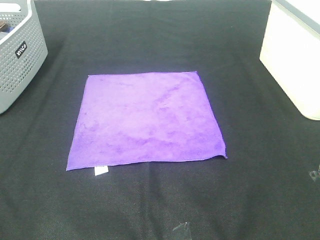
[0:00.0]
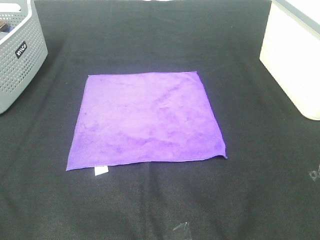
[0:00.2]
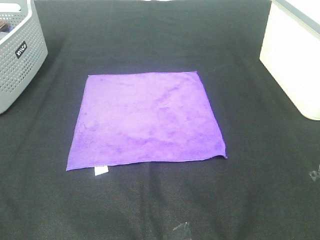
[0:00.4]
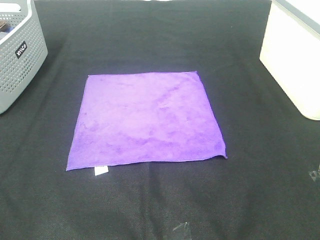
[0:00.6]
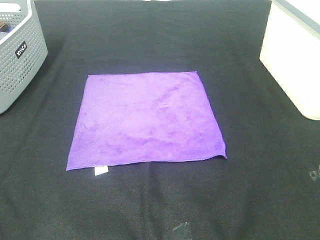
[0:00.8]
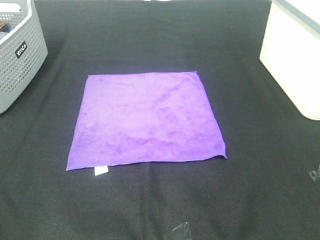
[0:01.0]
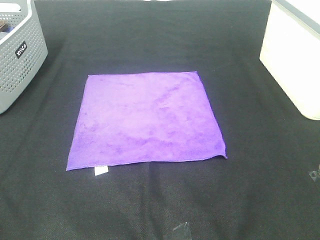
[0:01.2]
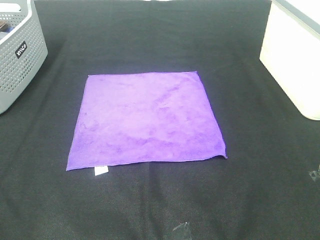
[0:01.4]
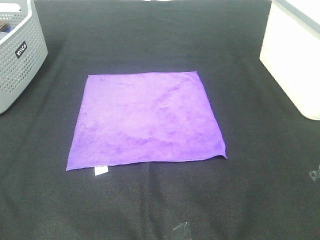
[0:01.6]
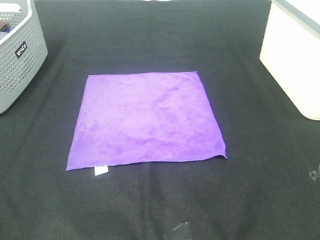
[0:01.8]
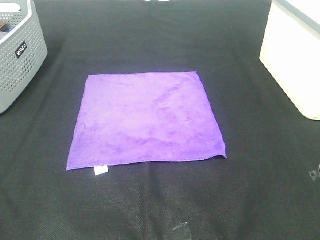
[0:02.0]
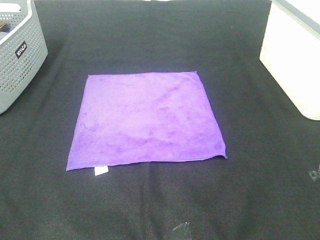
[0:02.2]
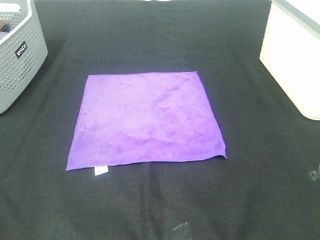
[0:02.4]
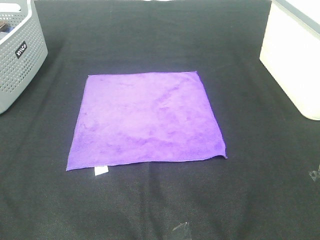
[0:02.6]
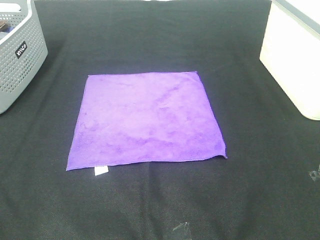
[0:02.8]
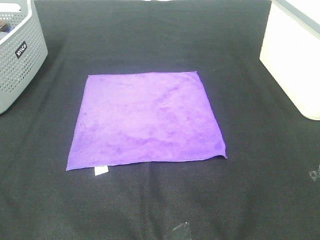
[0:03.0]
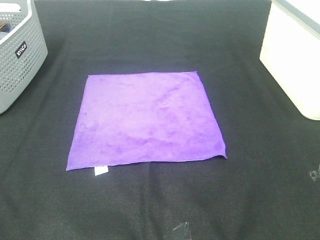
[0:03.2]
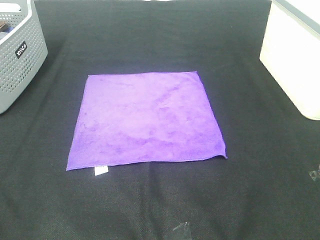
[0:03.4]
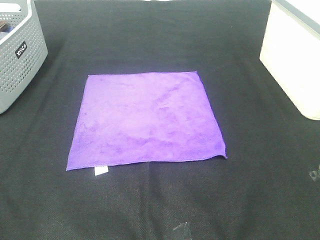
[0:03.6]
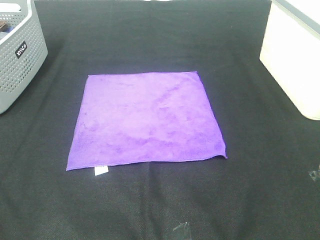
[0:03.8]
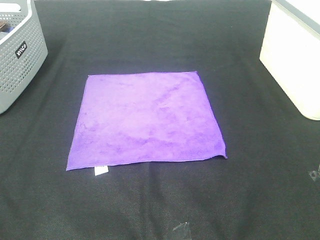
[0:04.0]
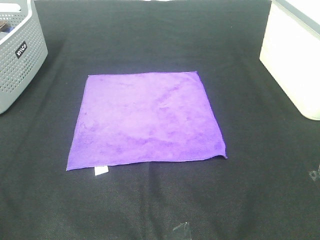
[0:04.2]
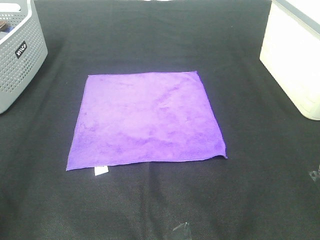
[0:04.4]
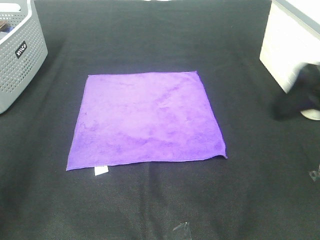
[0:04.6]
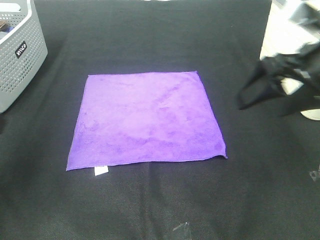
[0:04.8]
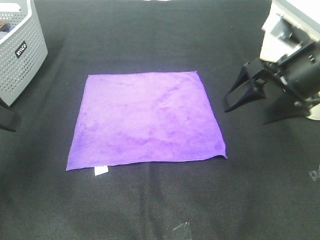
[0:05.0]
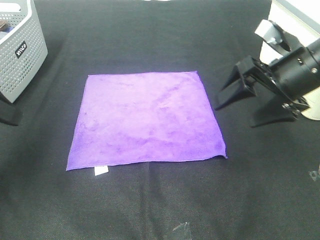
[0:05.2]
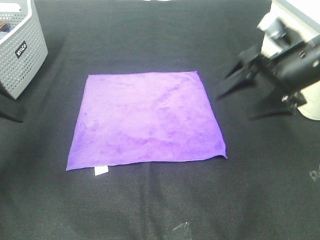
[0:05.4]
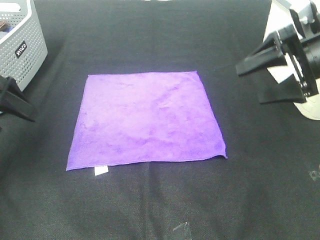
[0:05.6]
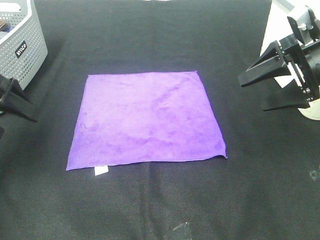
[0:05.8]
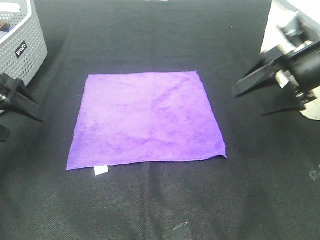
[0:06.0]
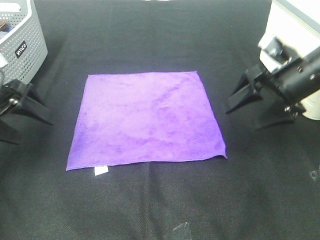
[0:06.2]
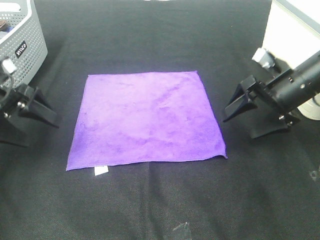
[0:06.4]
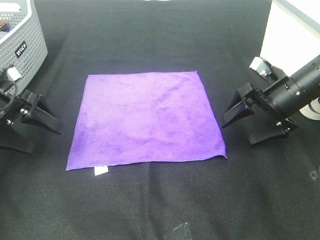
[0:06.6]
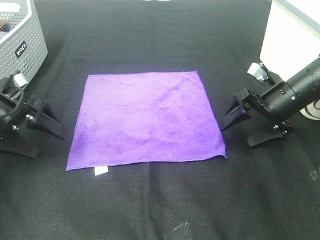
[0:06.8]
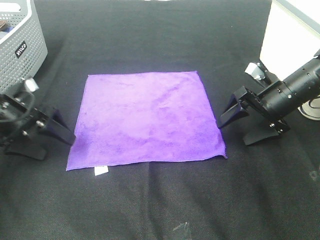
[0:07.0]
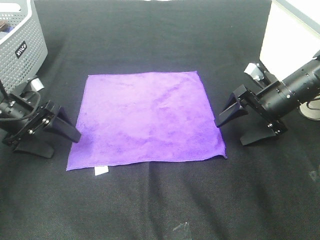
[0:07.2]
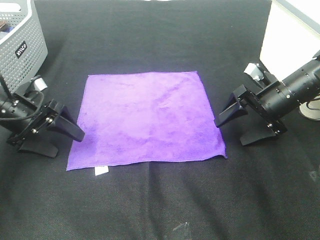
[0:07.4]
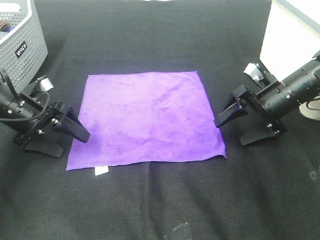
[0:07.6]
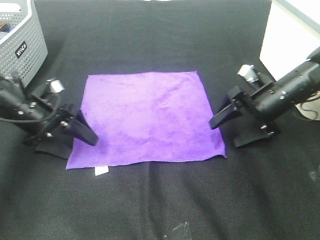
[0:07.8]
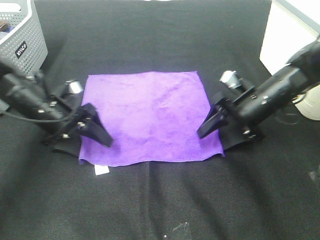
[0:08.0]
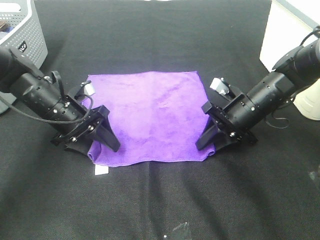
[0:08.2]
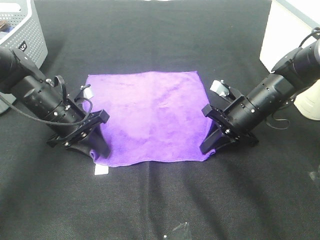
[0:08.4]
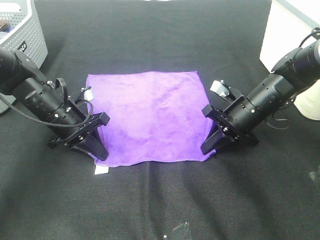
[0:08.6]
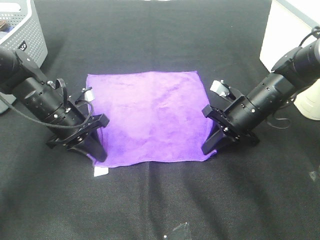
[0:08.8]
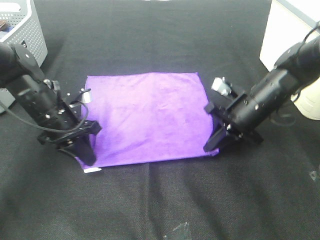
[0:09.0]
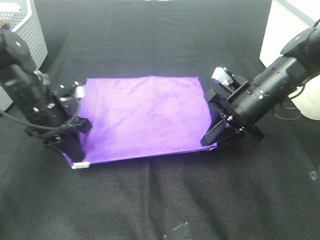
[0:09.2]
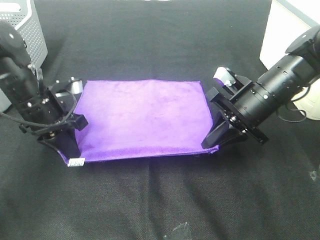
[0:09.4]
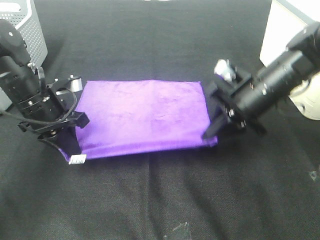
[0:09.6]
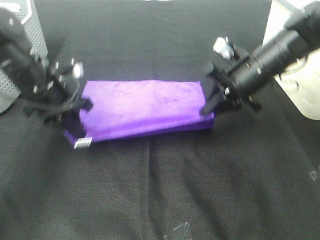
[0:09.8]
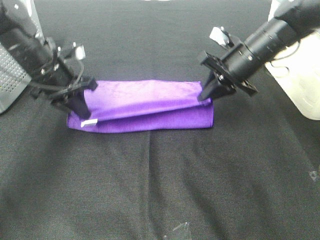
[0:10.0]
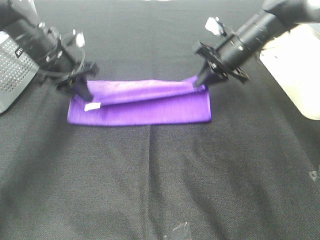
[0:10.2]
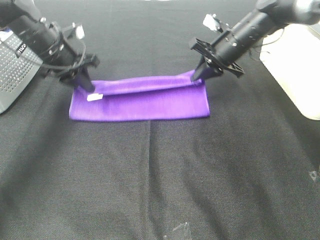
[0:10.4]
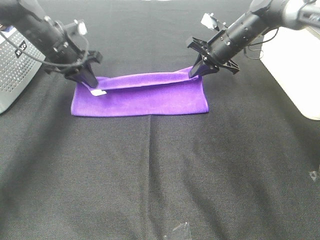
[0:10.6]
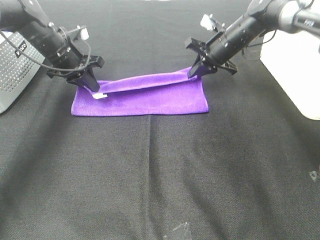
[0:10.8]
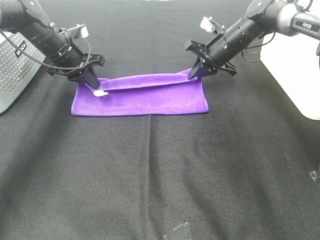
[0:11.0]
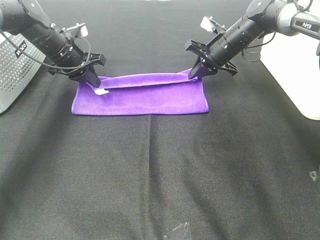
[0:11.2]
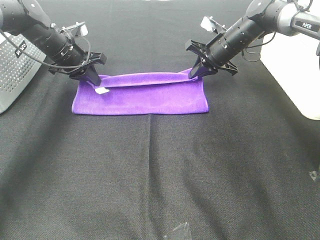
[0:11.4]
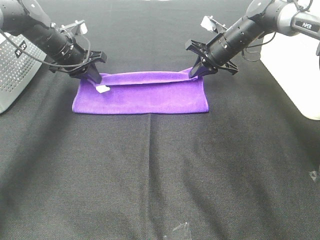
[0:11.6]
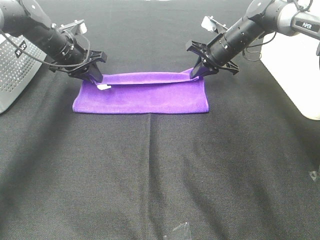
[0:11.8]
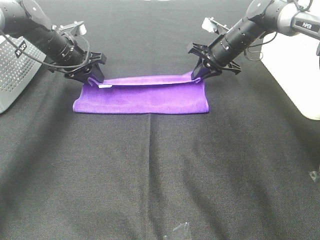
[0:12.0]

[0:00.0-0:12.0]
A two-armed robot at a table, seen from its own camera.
Task of the whole recording: Fold towels.
Step, 0:00.0 to 0:08.6: Left hand: grab the bottom left corner of purple towel.
Step, 0:00.0 to 0:08.6: Right hand: grab the bottom right corner of purple towel.
Step, 0:08.8 to 0:11.8: Left hand: fold the purple towel up.
Step, 0:08.8 to 0:11.8: Right hand: fold the purple towel up.
0:00.0 to 0:03.0: Neither gripper changes place.
0:04.4 to 0:06.0: The two grippers go some 20 cm forward and downward.
0:06.0 to 0:07.6: The right gripper goes approximately 10 cm downward. The left gripper travels downward and to the right by roughly 10 cm.
0:07.6 to 0:09.0: The right gripper travels to the left by about 5 cm, and closes up; the left gripper moves to the right, roughly 5 cm, and closes.
0:09.0 to 0:10.4: The right gripper moves forward, roughly 15 cm. Meanwhile the left gripper goes approximately 15 cm forward and upward.
0:10.4 to 0:12.0: The left gripper opens its fingers.

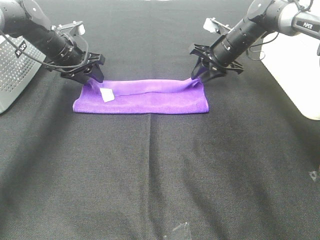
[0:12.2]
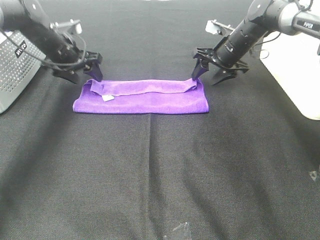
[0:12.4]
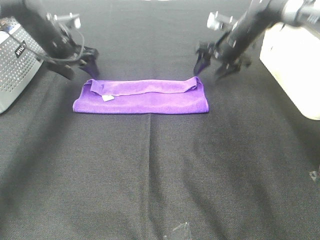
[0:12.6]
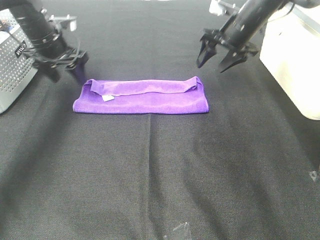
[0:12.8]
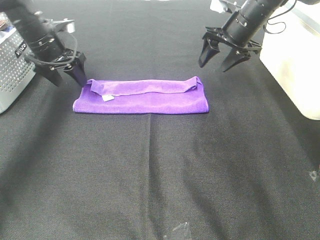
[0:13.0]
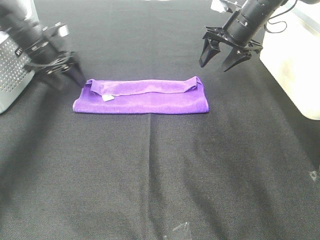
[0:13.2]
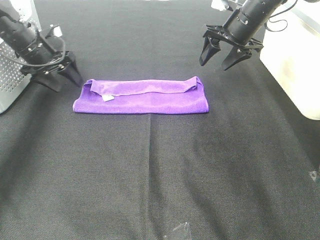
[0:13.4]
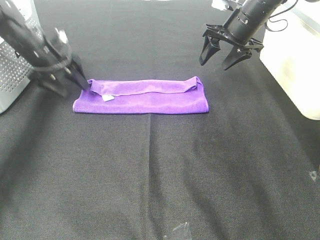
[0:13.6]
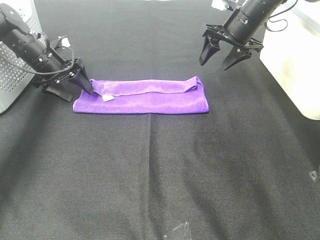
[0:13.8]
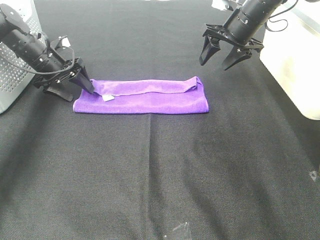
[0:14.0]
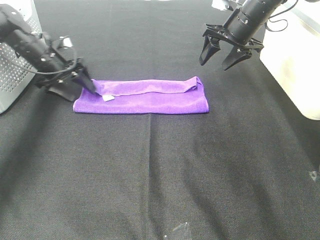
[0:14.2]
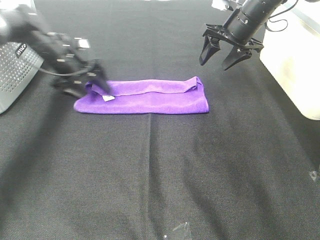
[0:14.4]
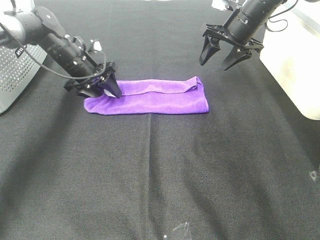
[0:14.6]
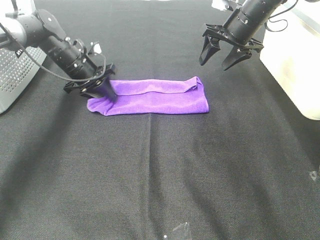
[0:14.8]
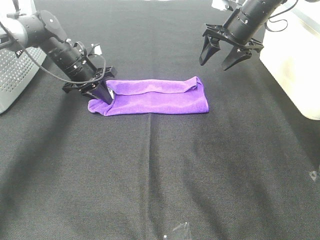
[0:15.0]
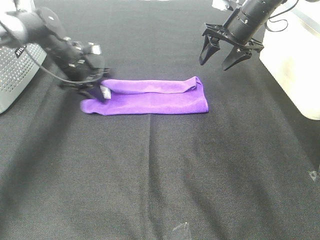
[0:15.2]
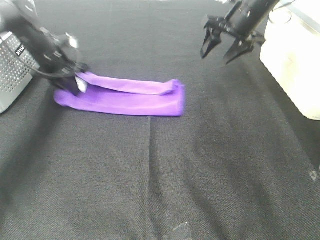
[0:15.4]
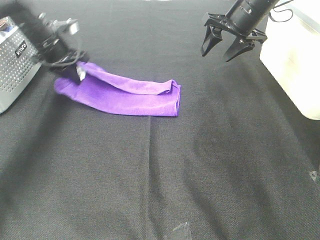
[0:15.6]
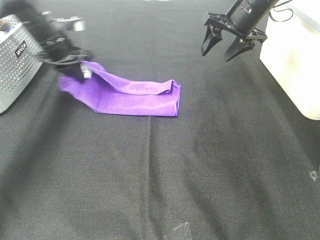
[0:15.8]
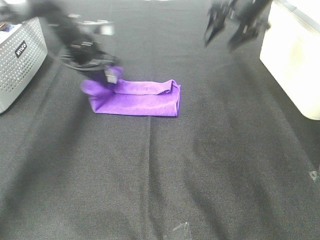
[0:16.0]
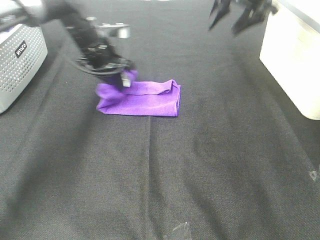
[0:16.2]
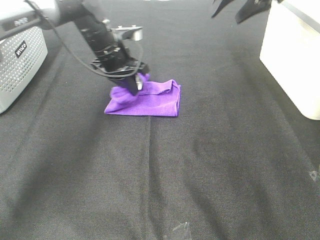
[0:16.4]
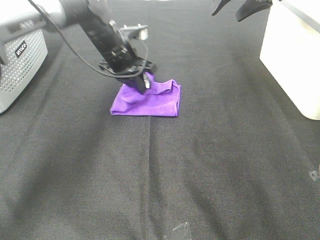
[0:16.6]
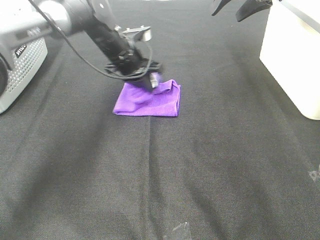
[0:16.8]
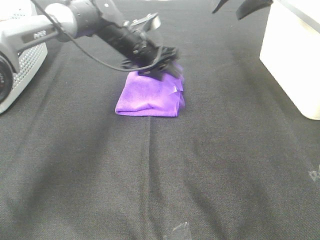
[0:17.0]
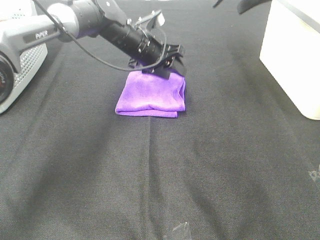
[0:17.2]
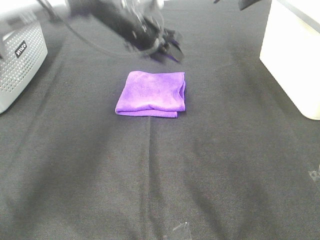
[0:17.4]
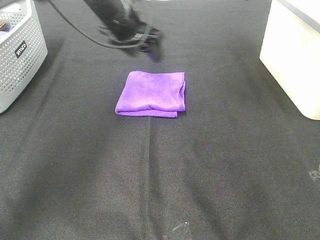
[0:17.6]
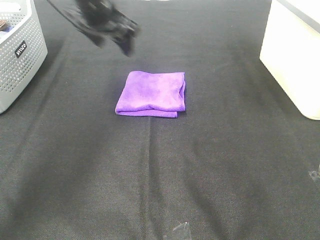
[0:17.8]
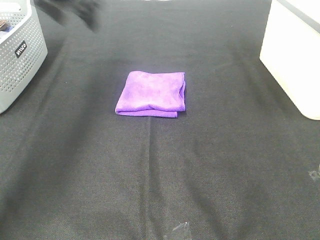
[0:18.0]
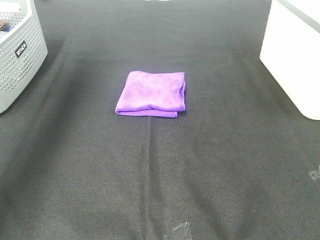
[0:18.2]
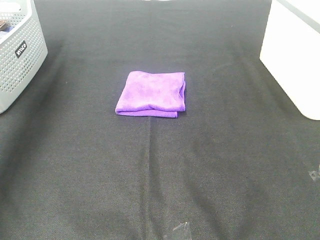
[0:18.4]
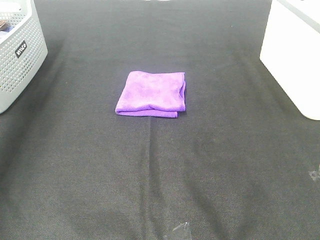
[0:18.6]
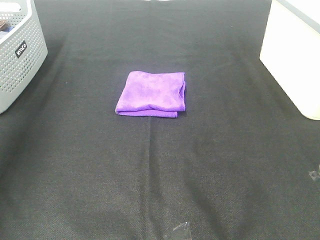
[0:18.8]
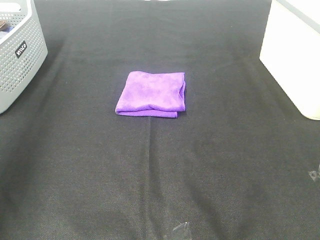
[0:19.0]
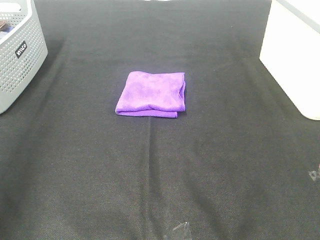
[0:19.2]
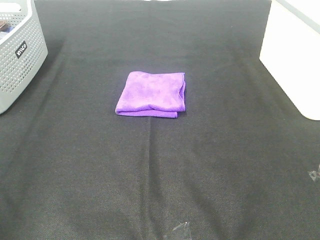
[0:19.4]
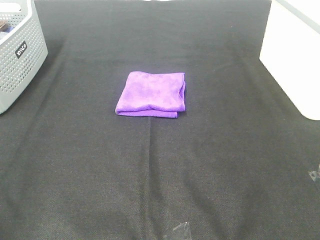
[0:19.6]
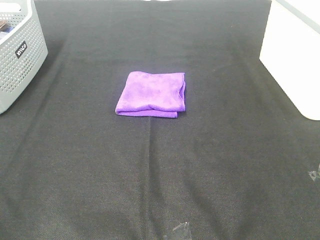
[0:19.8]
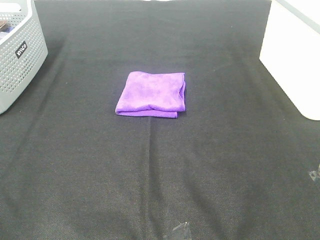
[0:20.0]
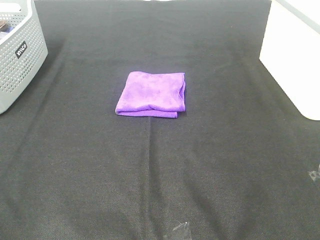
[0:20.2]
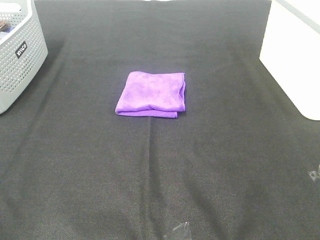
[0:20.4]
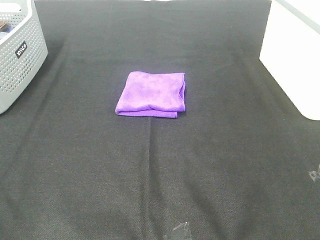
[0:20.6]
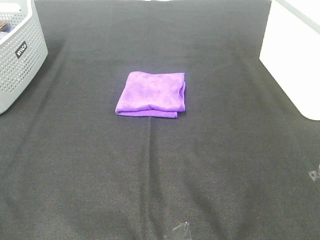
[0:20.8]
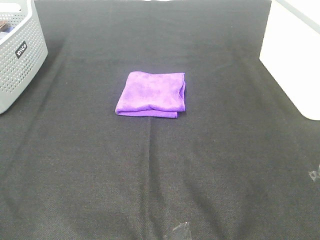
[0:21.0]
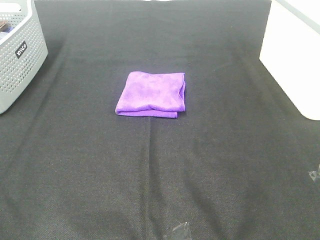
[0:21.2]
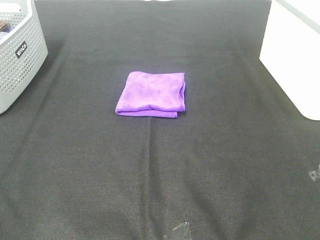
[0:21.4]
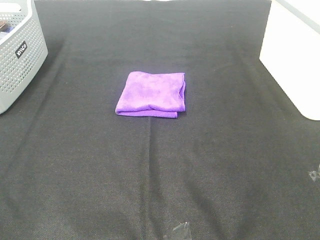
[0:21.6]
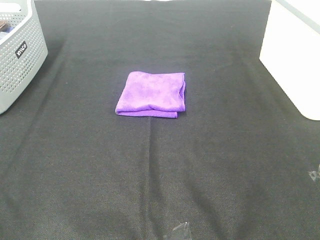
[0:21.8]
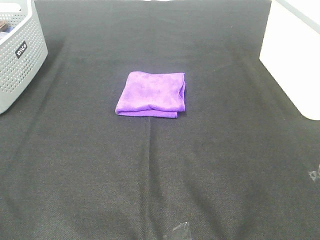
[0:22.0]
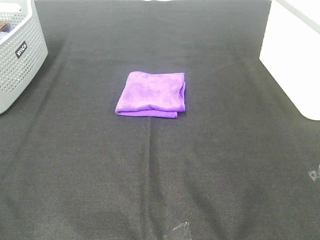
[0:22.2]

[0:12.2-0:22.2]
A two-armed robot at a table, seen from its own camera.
Task of the whole recording: Fold towels.
Step, 0:12.2 to 0:16.8: Left hand: fold the purple towel from left to right.
0:12.2 to 0:13.6: The left gripper changes place by about 5 cm, while the right gripper goes about 5 cm upward.
0:13.6 to 0:15.0: The left gripper is displaced to the right by about 5 cm, and closes up.
0:15.0 to 0:16.4: The right gripper moves upward, some 10 cm. Meanwhile the left gripper goes roughly 10 cm to the right and upward.
0:16.4 to 0:18.0: The right gripper heads upward and backward, covering about 10 cm. Meanwhile the left gripper is displaced upward and to the left by about 20 cm, and opens up.
0:18.0 to 0:19.4: The left gripper heads backward, covering some 40 cm.
0:20.8 to 0:22.2: The two grippers keep their place.
